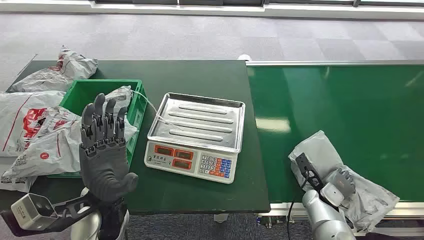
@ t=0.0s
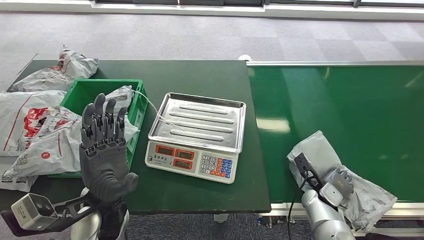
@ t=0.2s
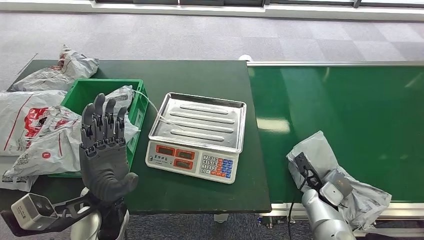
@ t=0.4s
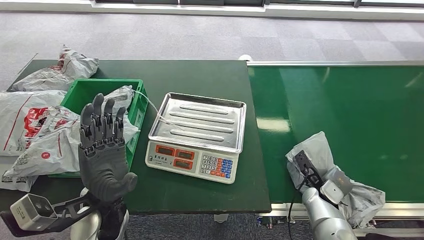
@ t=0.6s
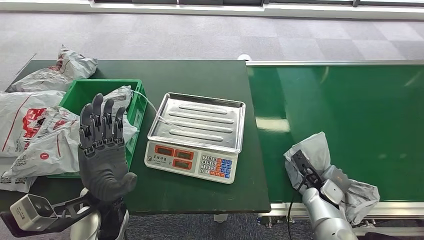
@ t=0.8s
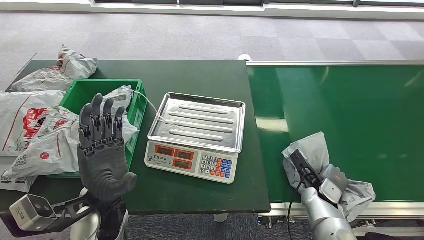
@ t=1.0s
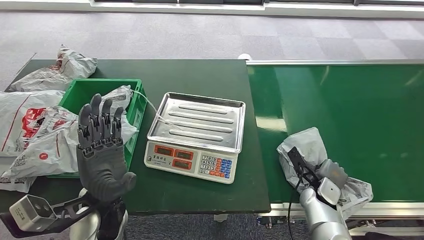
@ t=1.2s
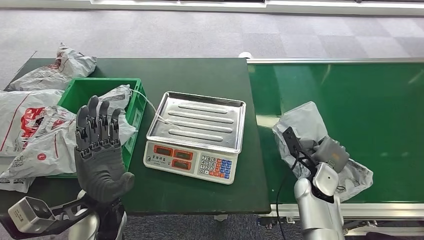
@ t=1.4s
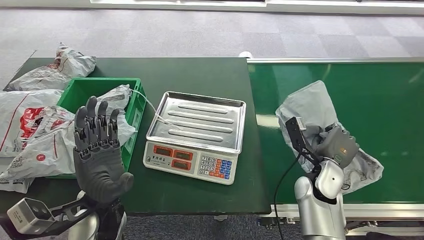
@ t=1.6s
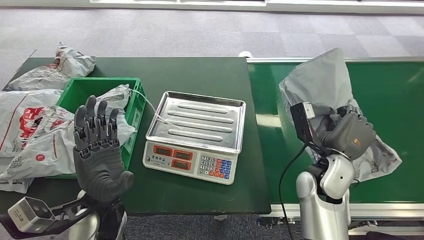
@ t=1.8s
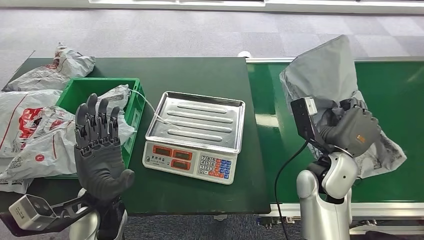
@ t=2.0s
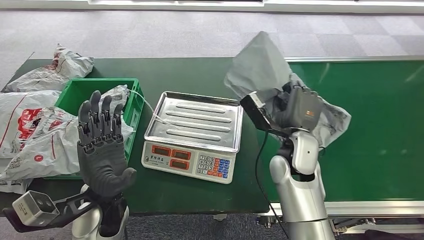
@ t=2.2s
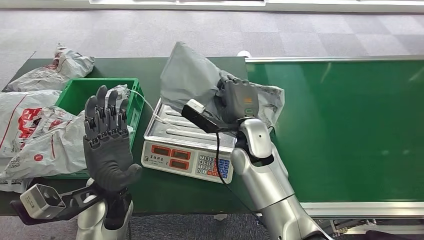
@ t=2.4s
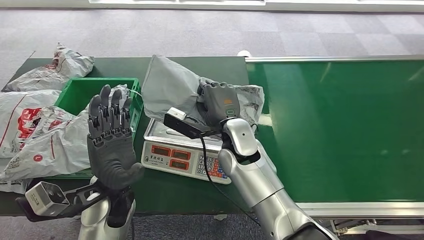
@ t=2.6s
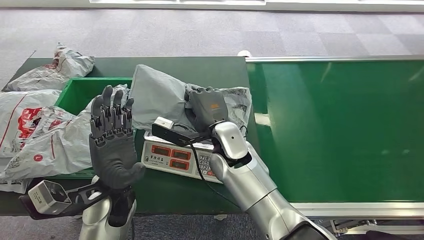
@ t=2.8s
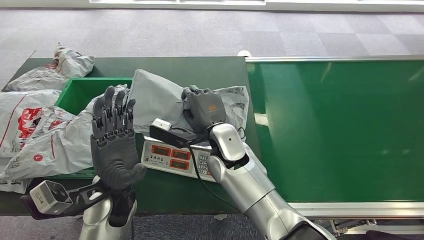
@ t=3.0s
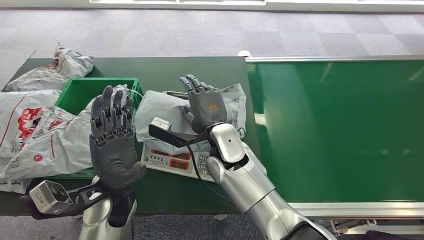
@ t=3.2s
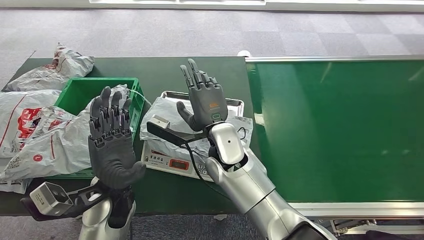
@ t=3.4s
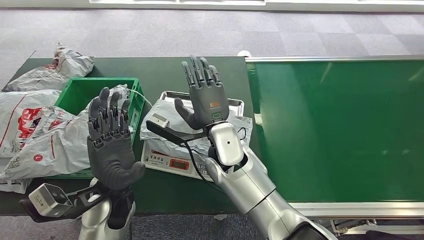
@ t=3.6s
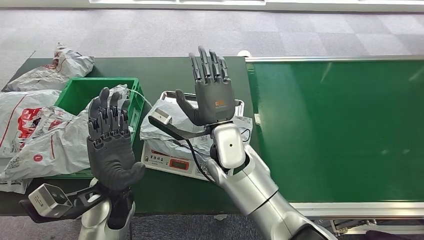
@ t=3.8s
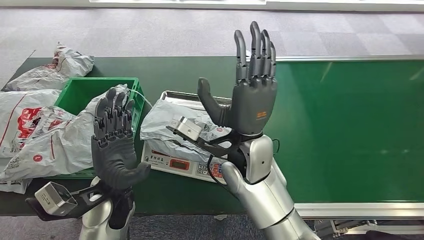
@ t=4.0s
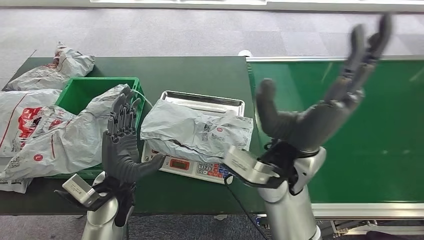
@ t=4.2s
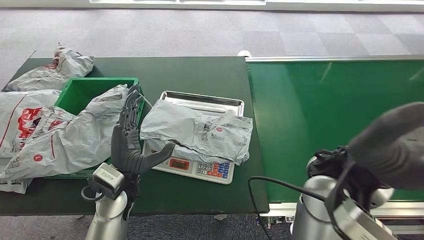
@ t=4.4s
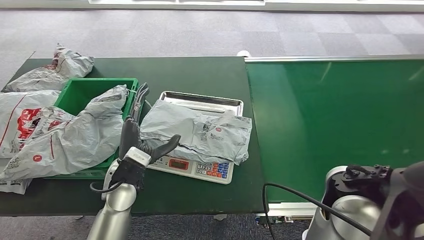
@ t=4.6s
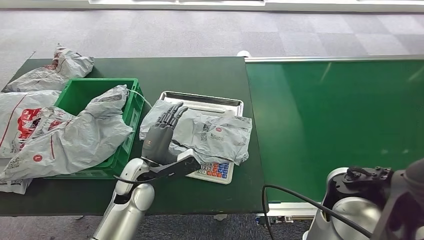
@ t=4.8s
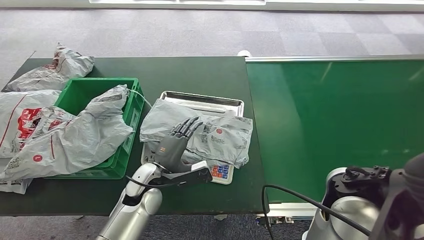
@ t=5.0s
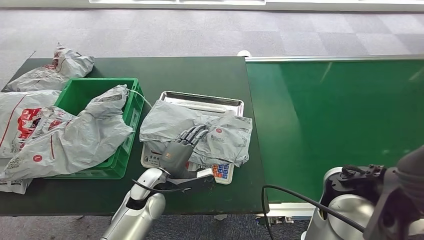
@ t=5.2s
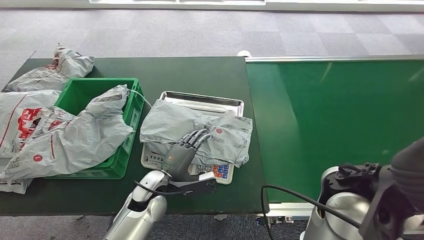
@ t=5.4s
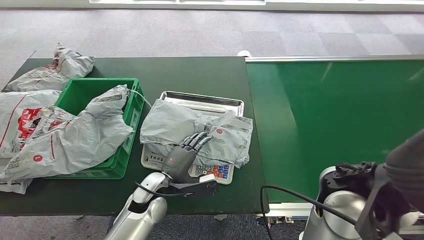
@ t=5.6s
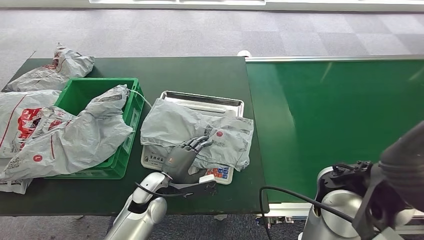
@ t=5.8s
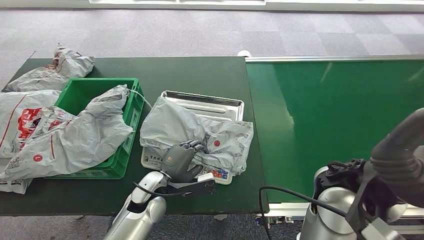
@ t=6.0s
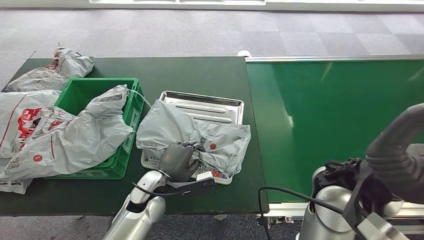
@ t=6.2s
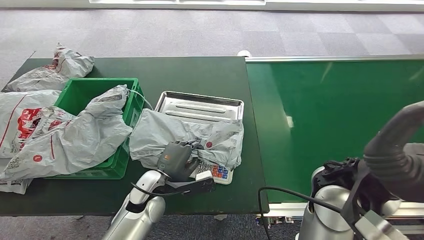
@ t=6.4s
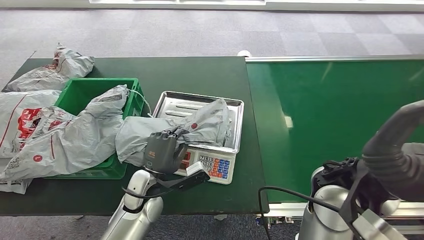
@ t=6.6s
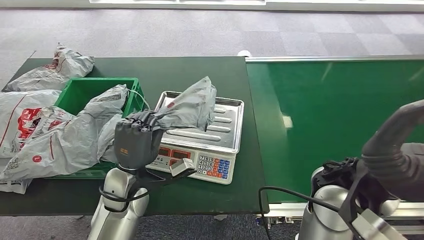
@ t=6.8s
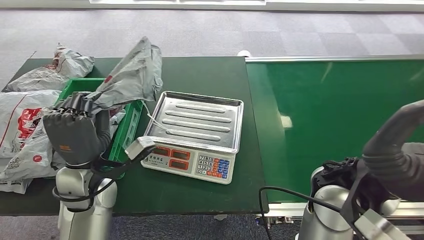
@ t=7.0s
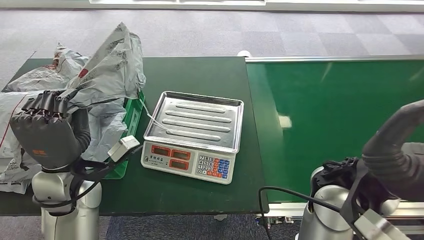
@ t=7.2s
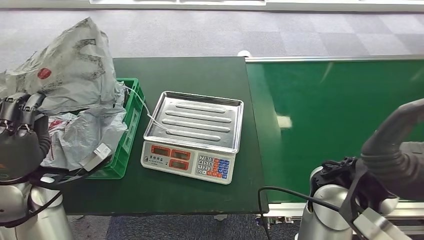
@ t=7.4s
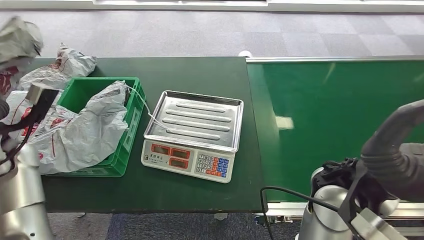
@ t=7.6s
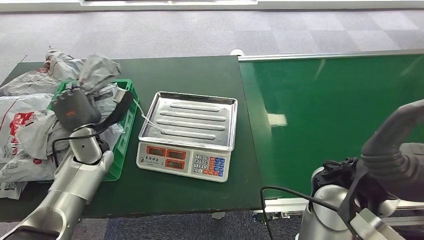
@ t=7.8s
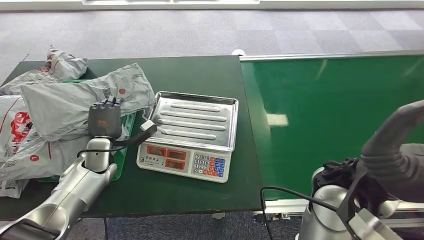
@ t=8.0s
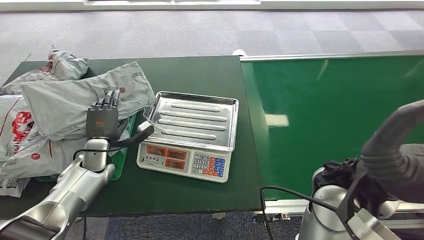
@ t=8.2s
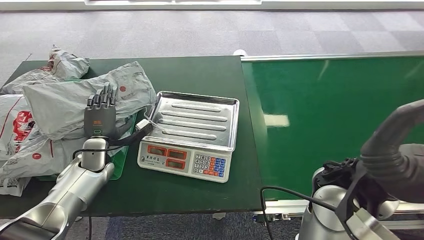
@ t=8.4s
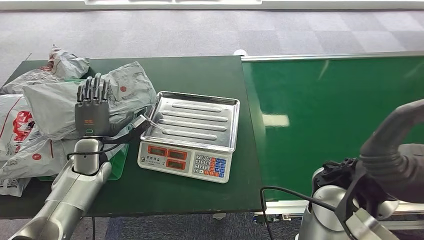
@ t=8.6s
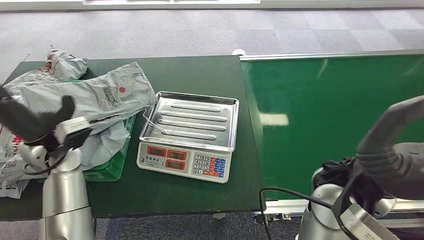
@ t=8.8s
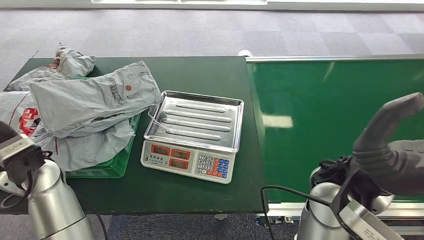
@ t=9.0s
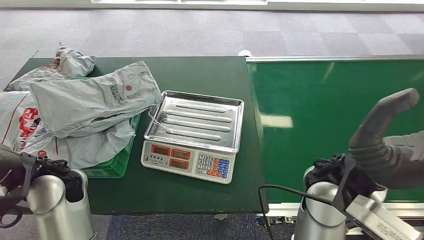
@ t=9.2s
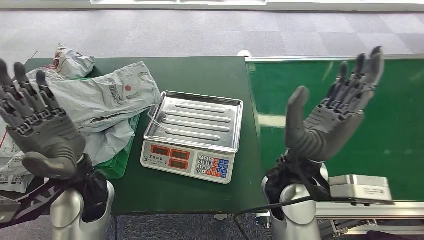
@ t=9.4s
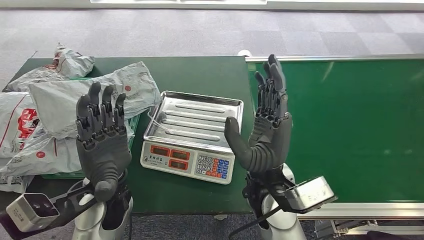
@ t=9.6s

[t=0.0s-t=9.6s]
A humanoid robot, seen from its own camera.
Step, t=0.0s to t=2.0s: Pick up the package from the conveyor belt.
Step, t=2.2s to t=5.0s: Place the package onto the inbound machine.
Step, t=5.4s to t=7.2s: Pick up the package from the inbound machine.
Step, t=7.4s to t=9.6s: Place the package into the parcel locker.
t=4.8s to t=6.4s: The left hand ends up some 5 cm from where it was.

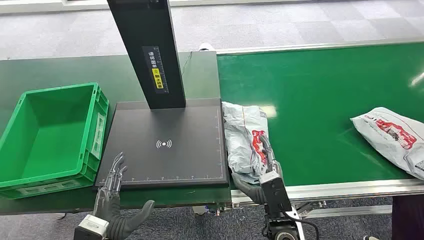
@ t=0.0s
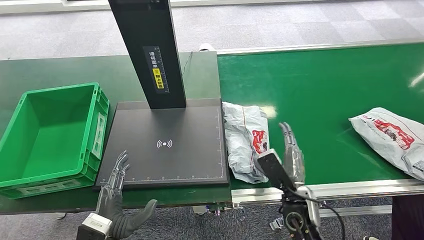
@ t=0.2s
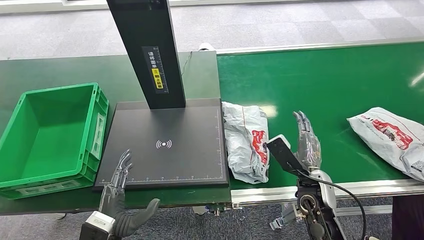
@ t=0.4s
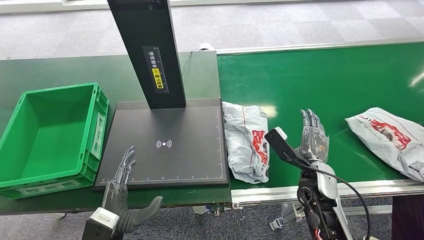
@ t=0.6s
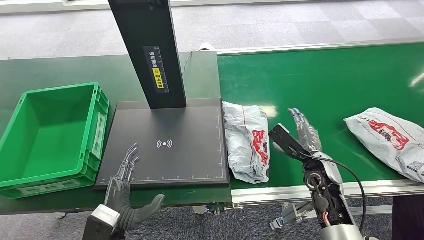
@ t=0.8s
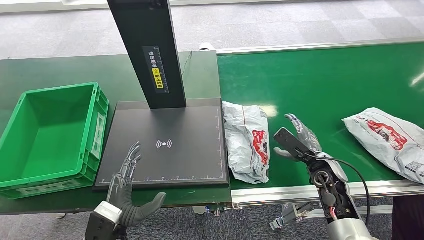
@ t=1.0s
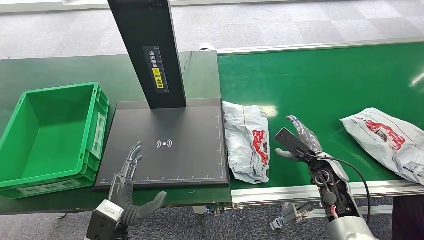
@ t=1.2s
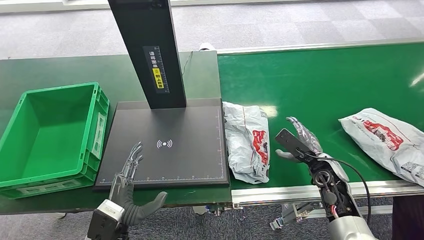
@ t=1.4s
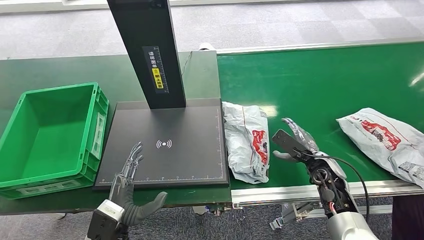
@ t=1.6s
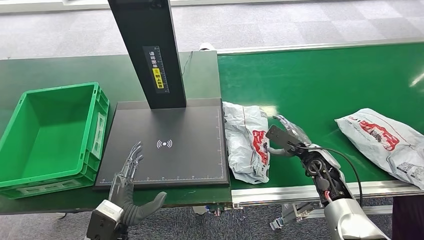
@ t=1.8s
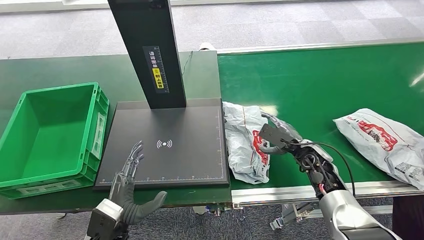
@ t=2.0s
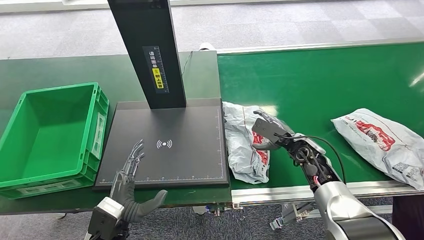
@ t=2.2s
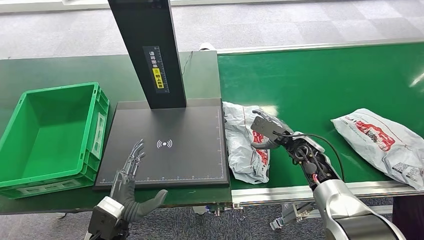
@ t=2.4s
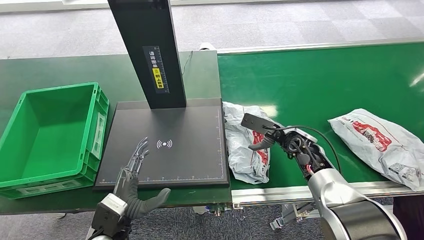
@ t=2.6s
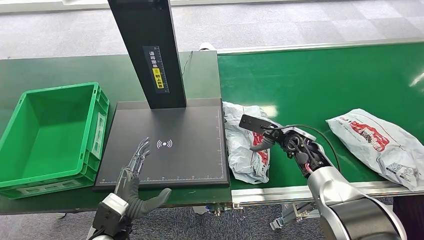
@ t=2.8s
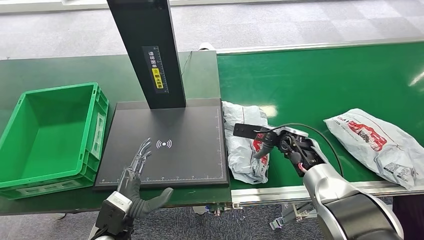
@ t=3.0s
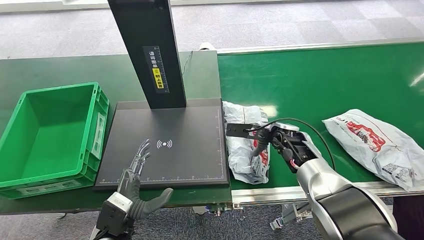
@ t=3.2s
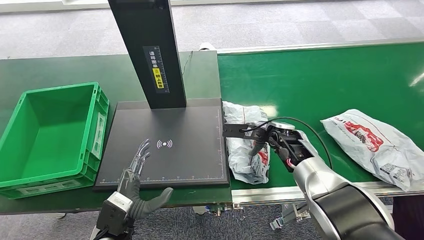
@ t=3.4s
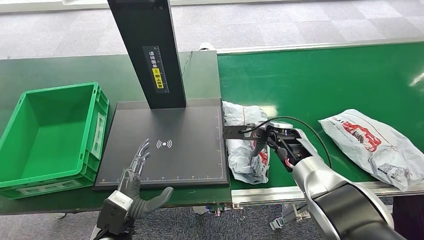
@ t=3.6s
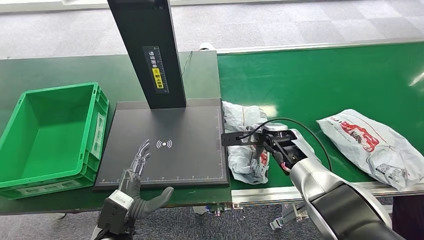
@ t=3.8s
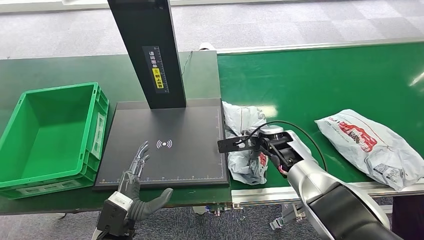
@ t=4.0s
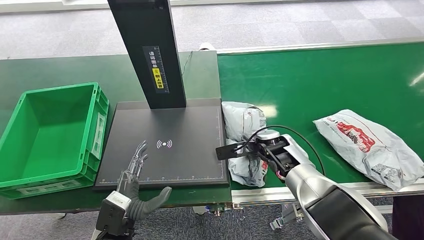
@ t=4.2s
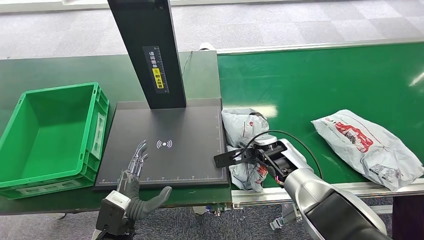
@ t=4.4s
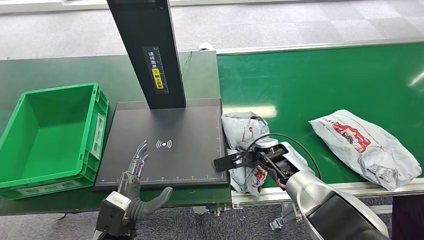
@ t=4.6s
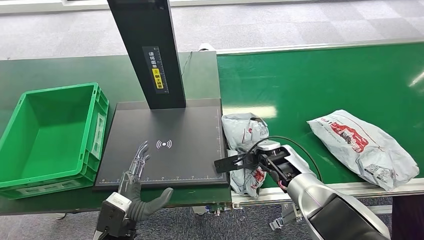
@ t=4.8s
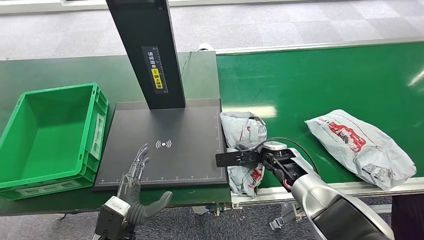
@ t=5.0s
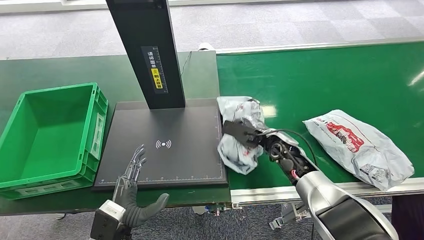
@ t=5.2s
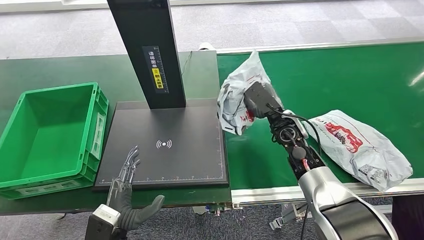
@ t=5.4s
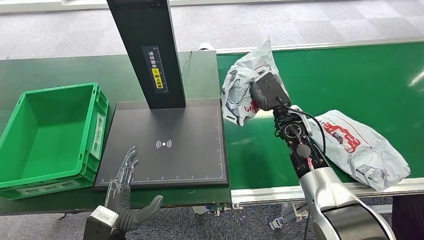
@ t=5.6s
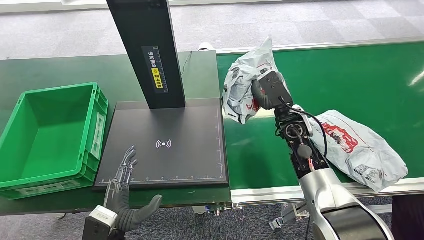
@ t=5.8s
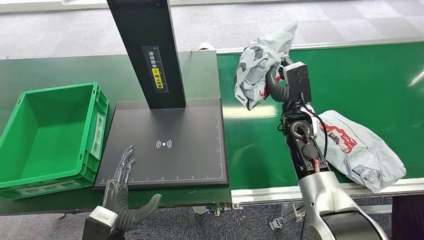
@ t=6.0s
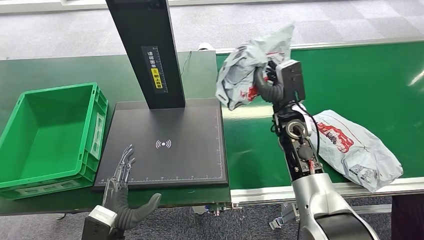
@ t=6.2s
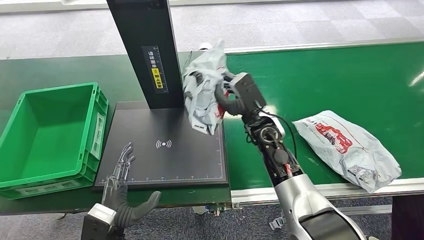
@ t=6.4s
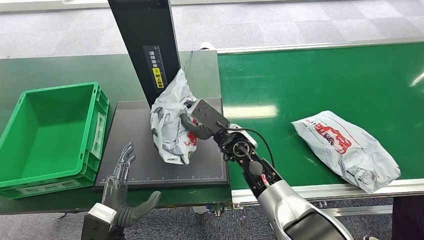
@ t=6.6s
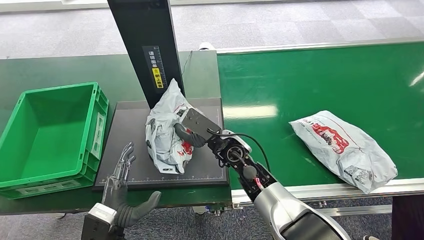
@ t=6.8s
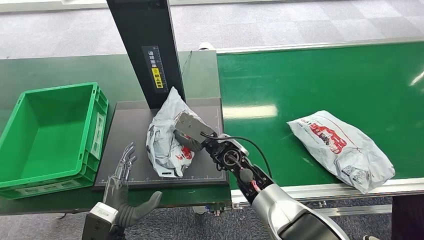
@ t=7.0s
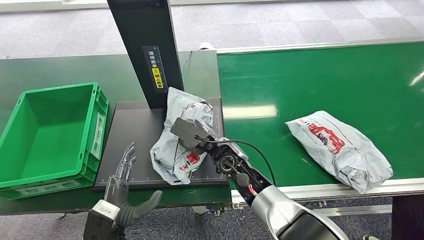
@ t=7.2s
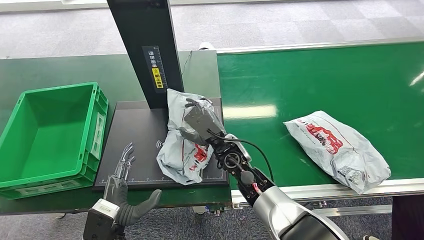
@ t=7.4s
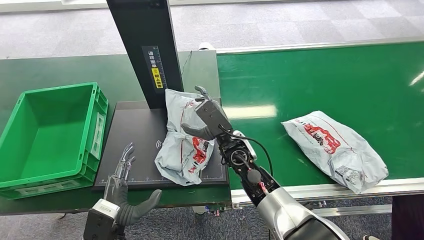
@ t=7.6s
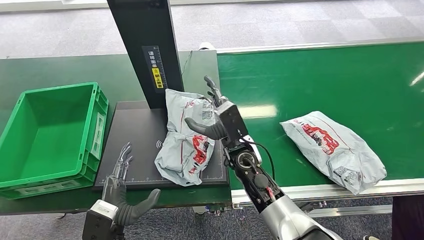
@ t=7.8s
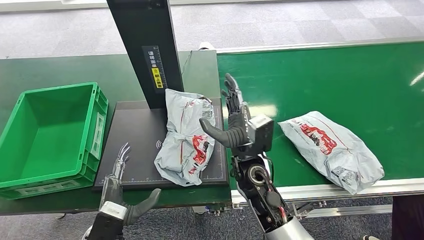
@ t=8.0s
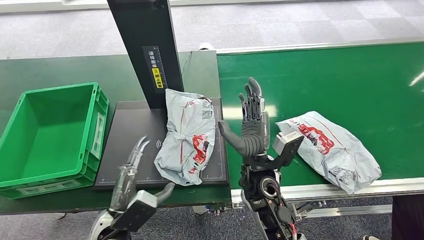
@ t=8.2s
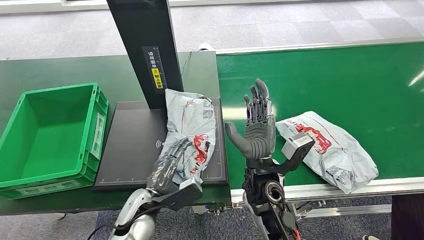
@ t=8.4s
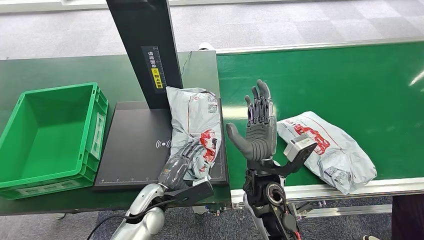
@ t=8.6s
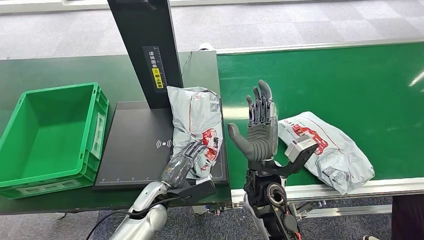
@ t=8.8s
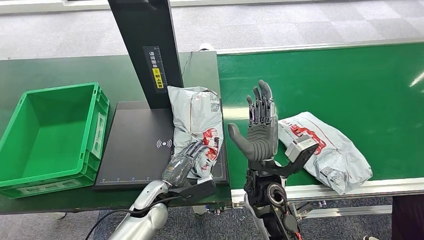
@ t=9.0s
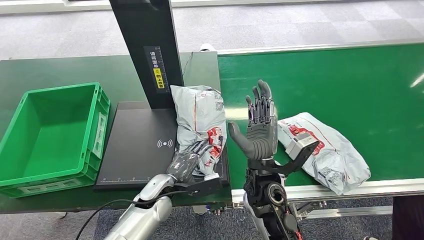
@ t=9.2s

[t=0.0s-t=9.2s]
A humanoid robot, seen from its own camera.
Step, t=0.0s to t=5.8s: Pick up the package from the conveyor belt.
Step, t=6.2s to t=8.2s: Place the package onto the inbound machine.
t=1.6s to t=3.0s: The right hand travels forward, to the left and upward by approximately 10 cm.
t=3.0s to t=4.6s: The right hand moves to the left, approximately 5 cm.
